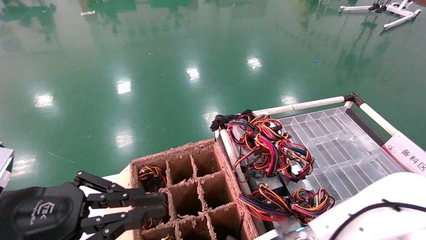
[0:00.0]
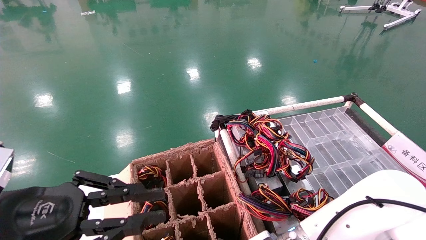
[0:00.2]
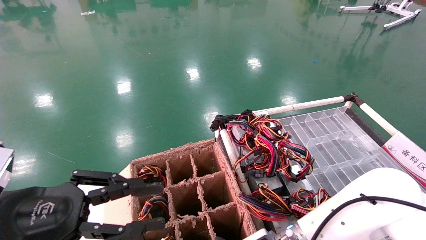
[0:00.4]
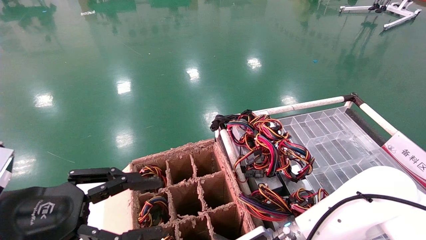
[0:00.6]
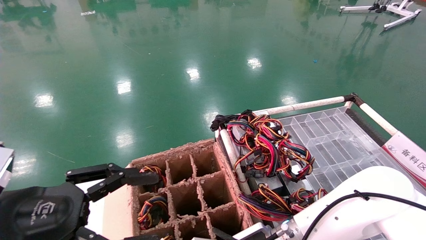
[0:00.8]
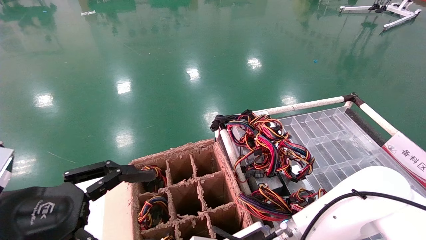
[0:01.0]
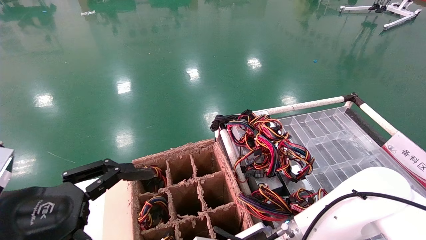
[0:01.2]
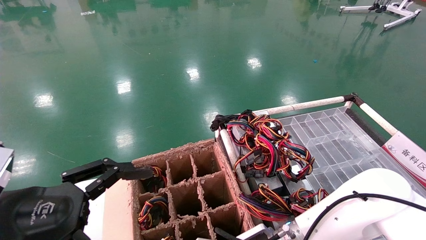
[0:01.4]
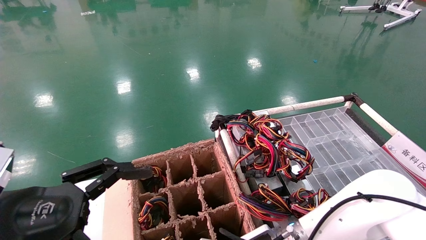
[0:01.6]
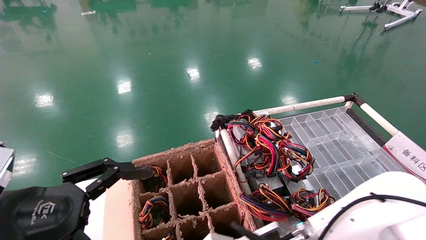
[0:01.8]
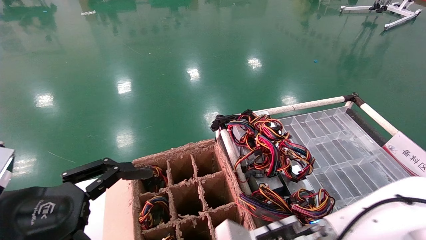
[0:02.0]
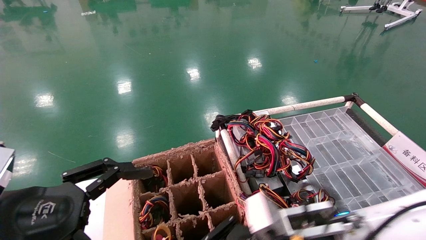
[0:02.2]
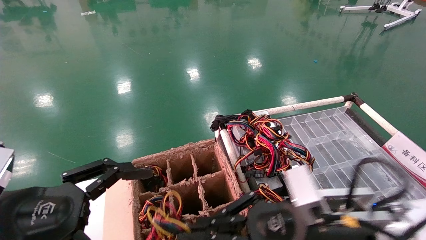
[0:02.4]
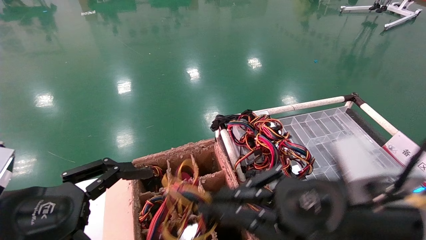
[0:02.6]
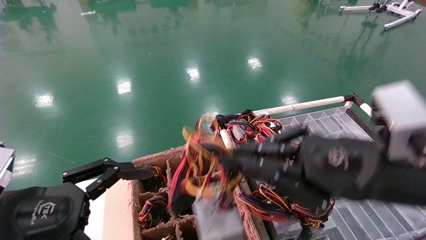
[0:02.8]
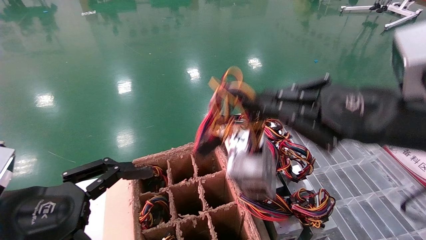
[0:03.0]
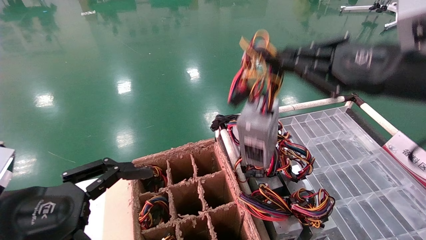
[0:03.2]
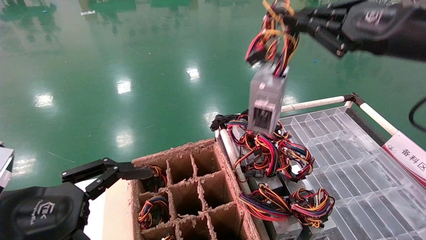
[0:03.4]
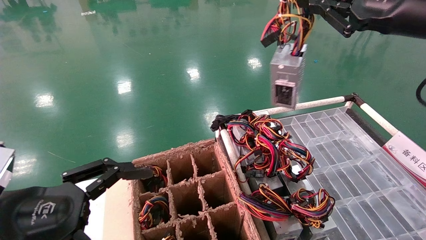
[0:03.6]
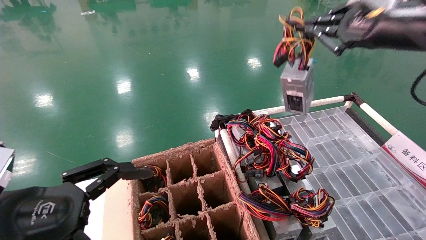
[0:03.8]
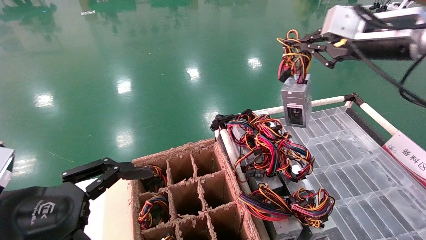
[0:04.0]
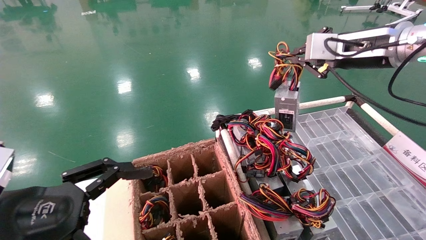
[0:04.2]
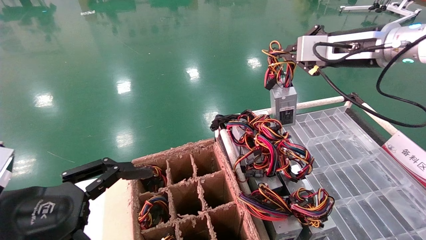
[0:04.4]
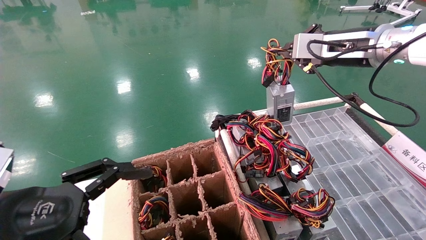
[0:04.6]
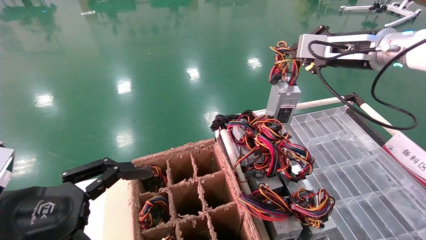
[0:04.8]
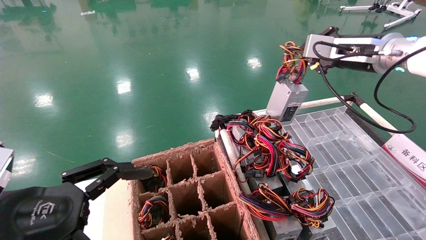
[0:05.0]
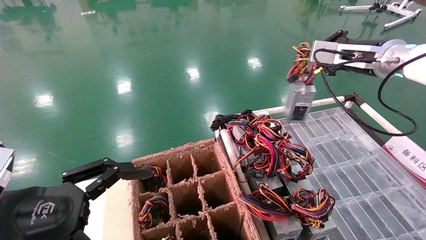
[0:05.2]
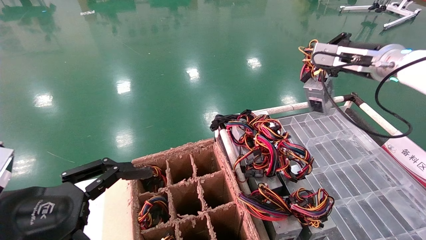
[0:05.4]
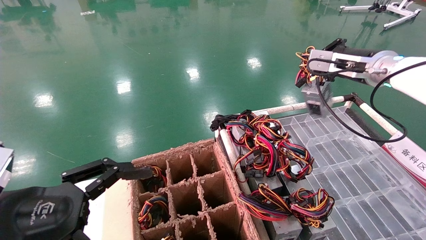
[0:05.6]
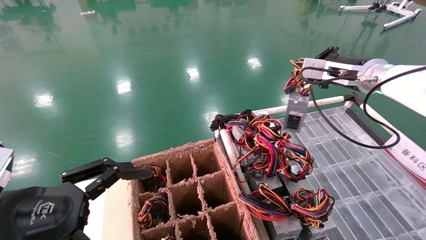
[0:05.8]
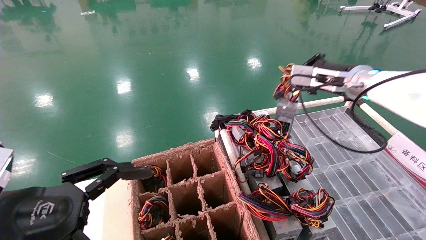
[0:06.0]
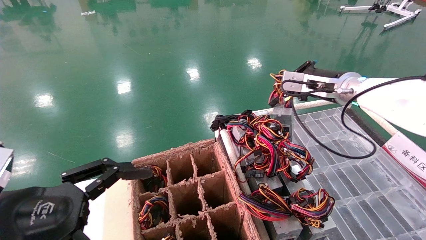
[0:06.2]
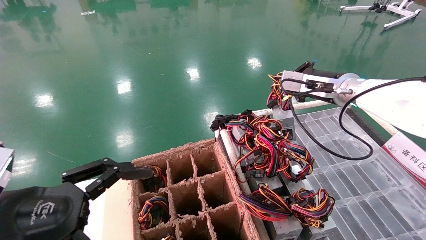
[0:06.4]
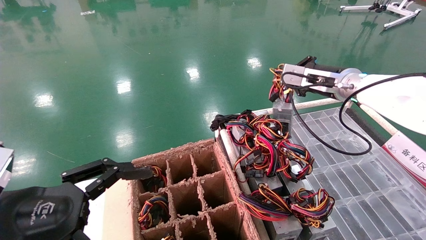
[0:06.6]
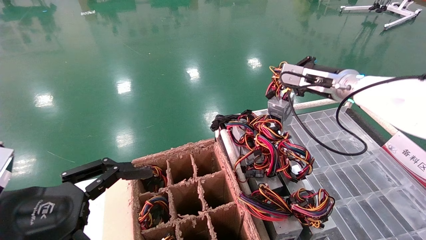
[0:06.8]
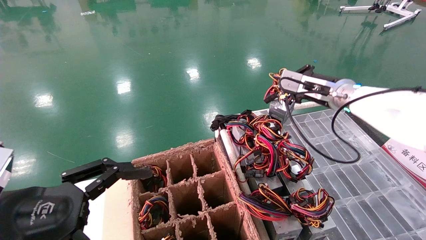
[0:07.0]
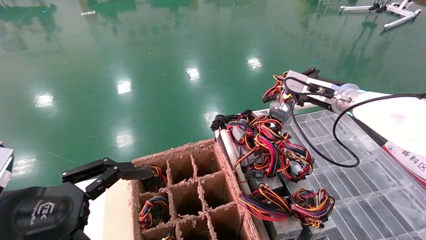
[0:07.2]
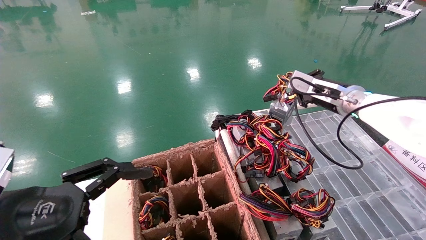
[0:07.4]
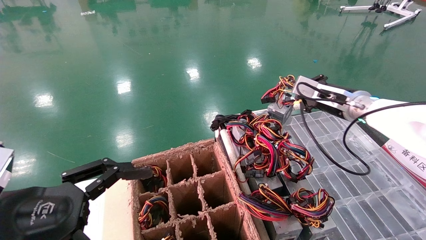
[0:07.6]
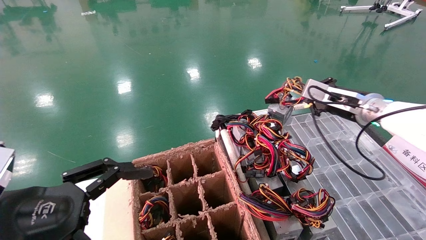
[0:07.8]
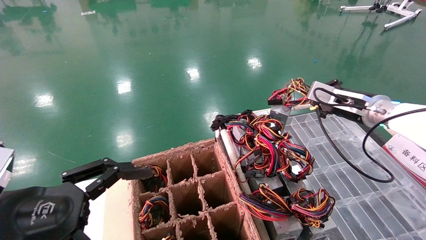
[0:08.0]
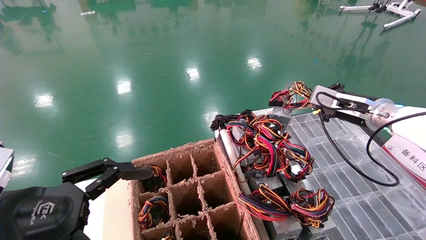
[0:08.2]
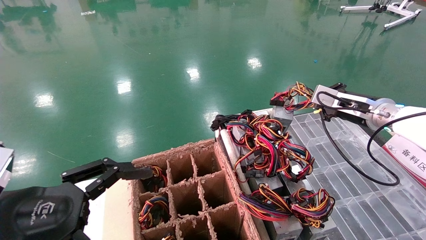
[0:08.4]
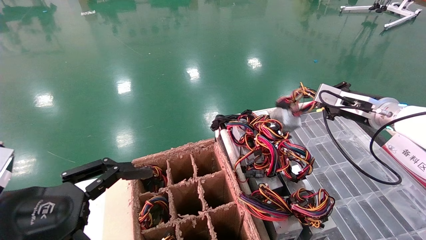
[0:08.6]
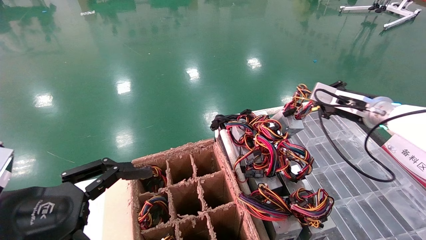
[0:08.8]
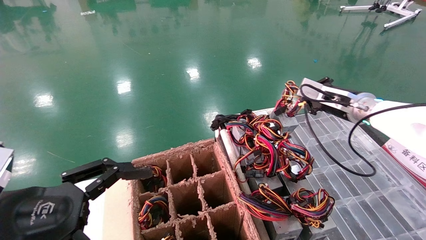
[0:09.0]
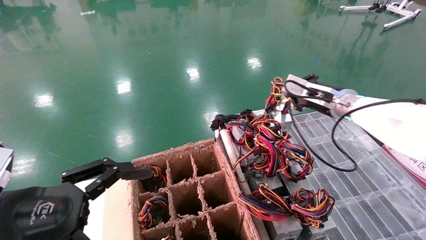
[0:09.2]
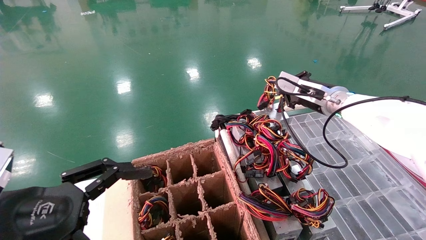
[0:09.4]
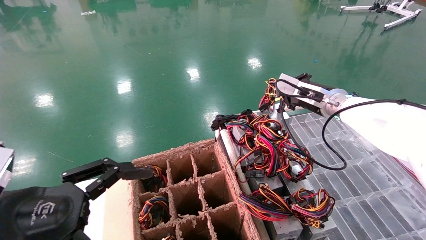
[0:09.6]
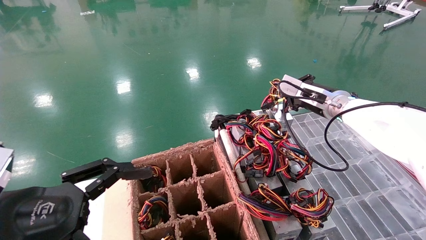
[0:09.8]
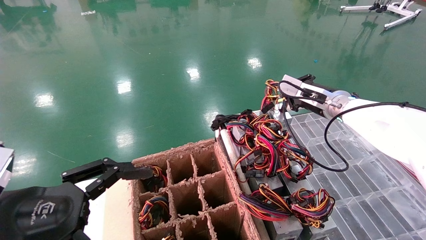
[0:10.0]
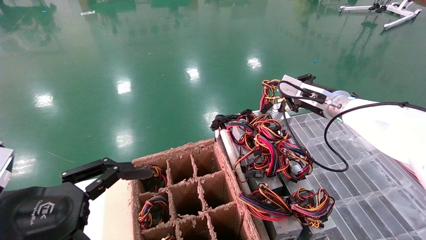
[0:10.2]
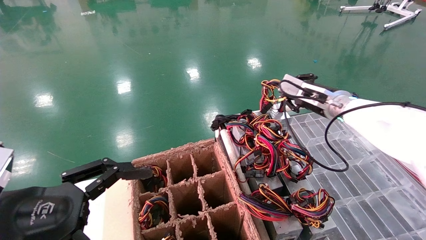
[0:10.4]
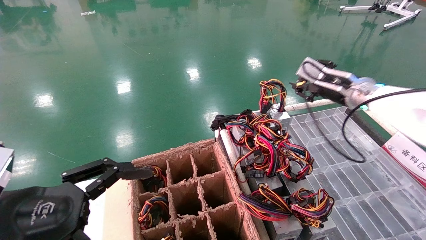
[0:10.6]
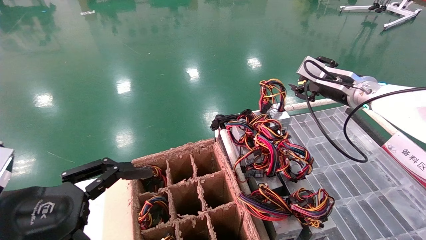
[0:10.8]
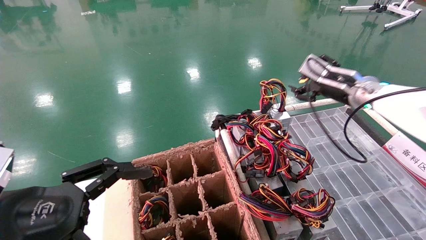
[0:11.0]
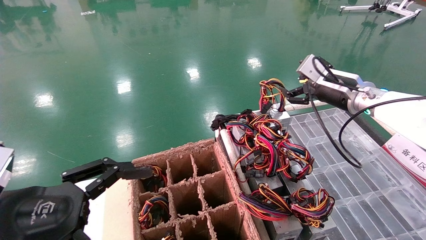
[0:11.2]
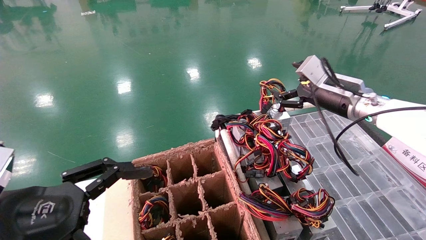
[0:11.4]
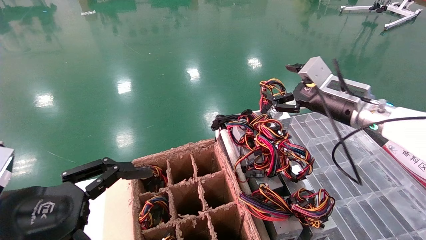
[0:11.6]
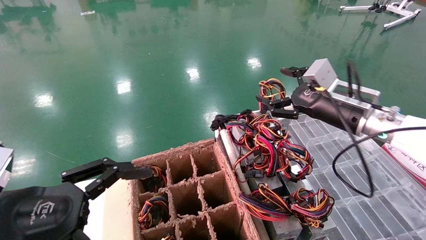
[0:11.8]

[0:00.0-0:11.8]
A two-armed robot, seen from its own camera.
Step, 0:01.8 to 0:10.2: Place the power supply on the operating table.
0:00.0 to 0:01.4: The right gripper closes its fingers. Meanwhile the left gripper opens up.
0:01.4 to 0:03.0: The right gripper is displaced upward and to the right by roughly 30 cm.
0:03.0 to 0:04.4: The right gripper shifts about 15 cm forward and upward.
0:04.4 to 0:06.0: The right gripper shifts about 10 cm forward and downward.
0:06.0 to 0:07.4: The right gripper moves roughly 5 cm.
0:07.4 to 0:08.8: The grippers stay close to where they were, moving slightly.
0:08.8 to 0:10.4: The right gripper goes about 5 cm to the left.
0:10.4 to 0:11.8: The right gripper moves backward, roughly 5 cm, and opens.
